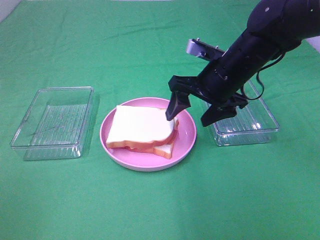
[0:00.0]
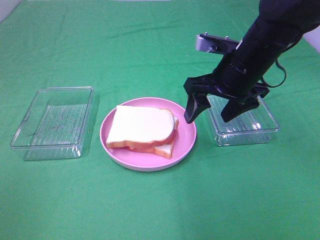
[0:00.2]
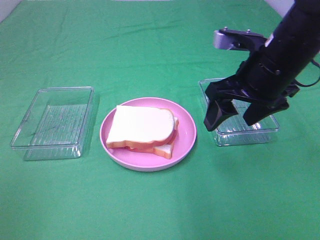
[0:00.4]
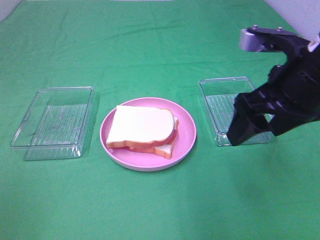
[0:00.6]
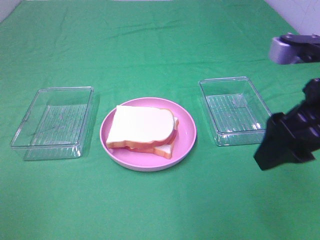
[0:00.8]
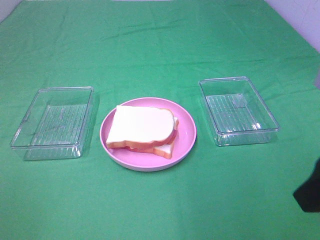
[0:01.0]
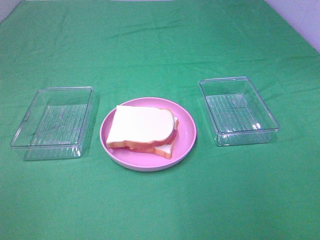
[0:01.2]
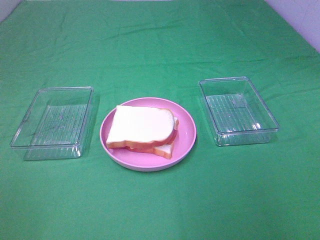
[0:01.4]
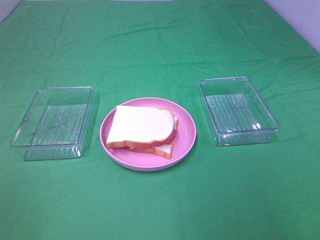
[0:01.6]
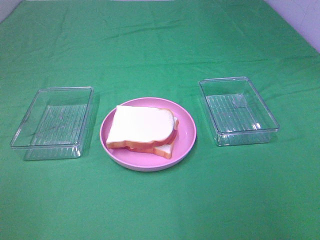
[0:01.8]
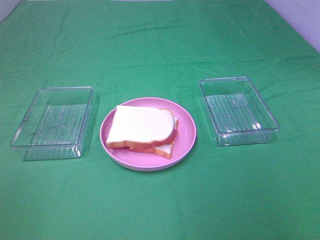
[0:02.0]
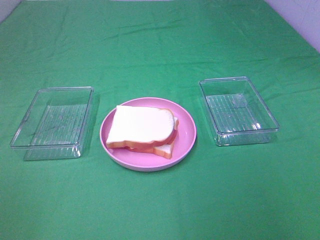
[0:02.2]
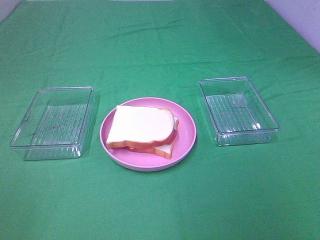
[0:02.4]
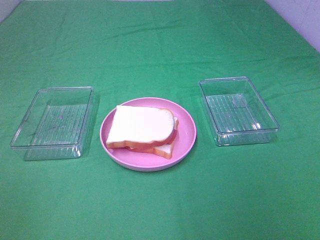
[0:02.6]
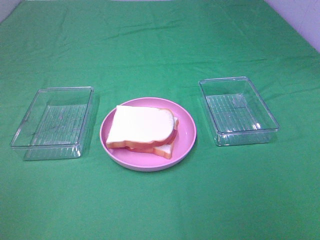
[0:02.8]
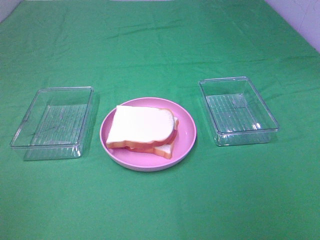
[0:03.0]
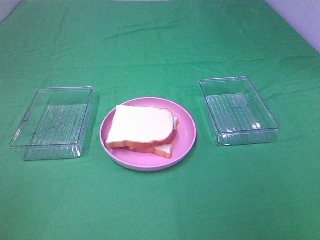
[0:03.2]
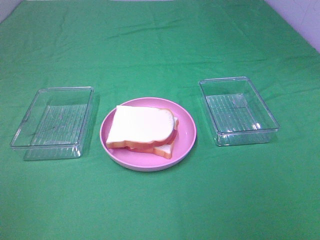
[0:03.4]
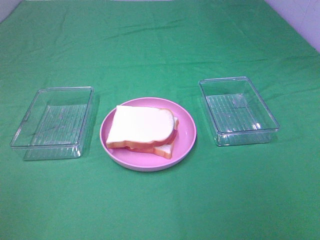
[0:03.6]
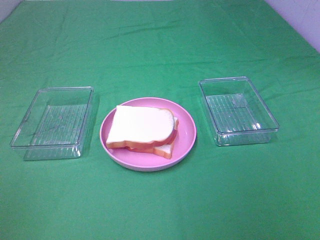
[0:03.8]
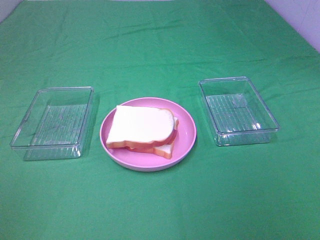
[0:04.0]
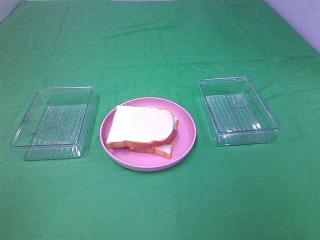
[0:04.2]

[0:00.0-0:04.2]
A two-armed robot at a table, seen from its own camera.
Task of the whole recording: Make sandwiches.
0:00.0 to 0:01.4: The right gripper is displaced backward and to the right by approximately 30 cm.

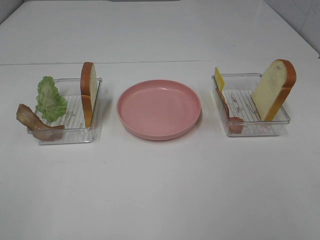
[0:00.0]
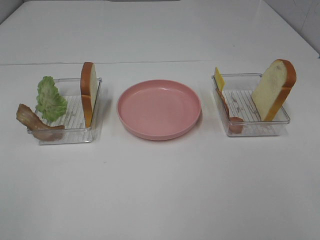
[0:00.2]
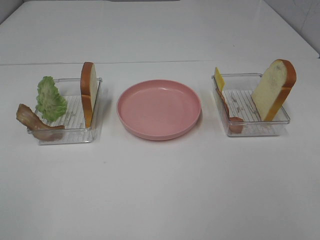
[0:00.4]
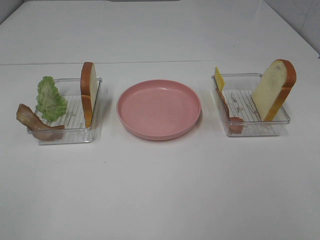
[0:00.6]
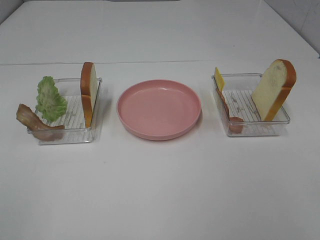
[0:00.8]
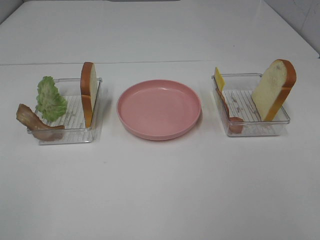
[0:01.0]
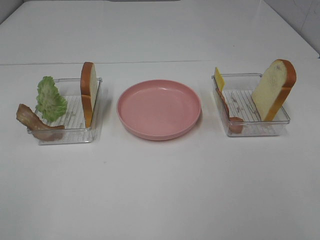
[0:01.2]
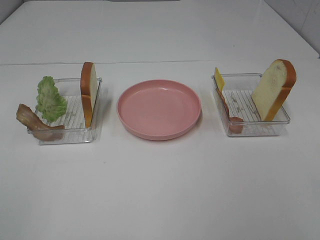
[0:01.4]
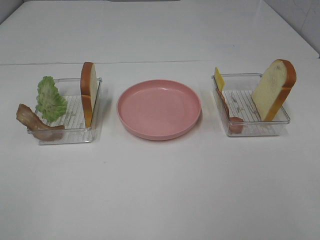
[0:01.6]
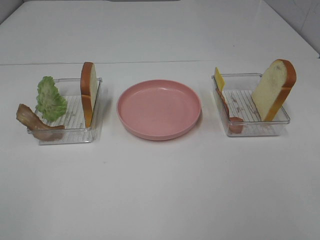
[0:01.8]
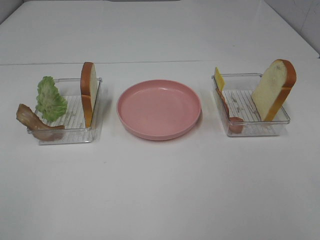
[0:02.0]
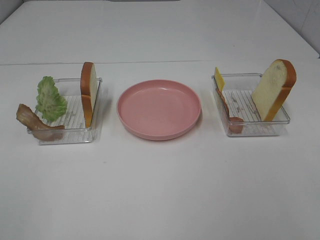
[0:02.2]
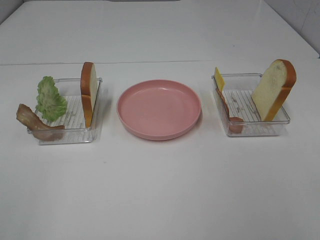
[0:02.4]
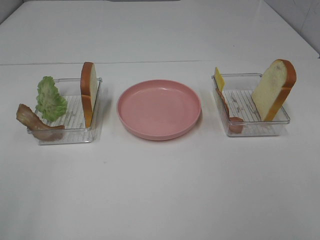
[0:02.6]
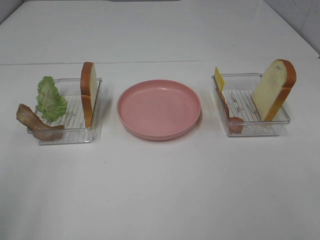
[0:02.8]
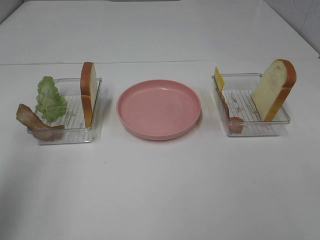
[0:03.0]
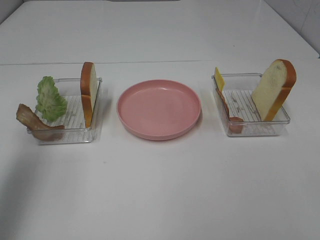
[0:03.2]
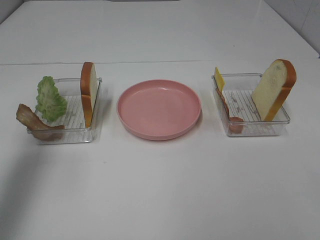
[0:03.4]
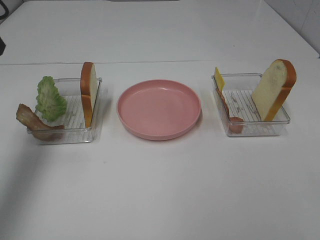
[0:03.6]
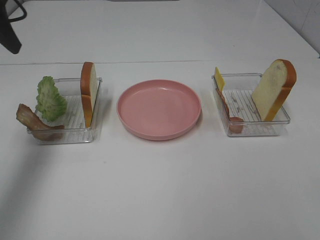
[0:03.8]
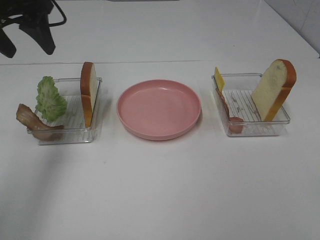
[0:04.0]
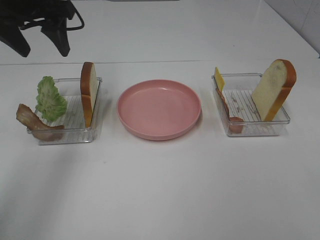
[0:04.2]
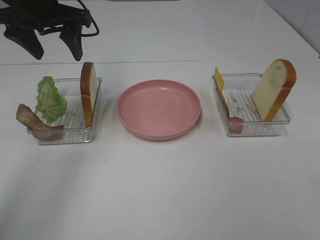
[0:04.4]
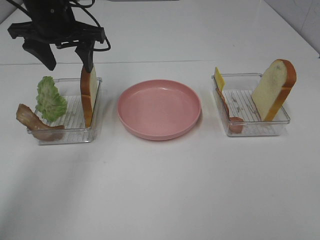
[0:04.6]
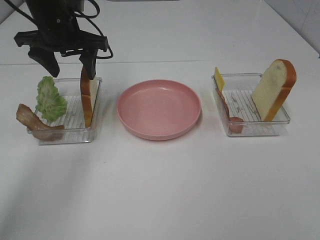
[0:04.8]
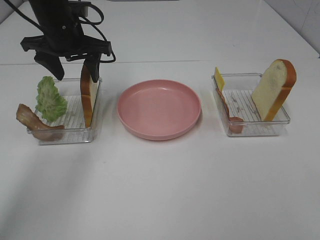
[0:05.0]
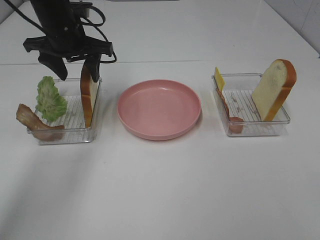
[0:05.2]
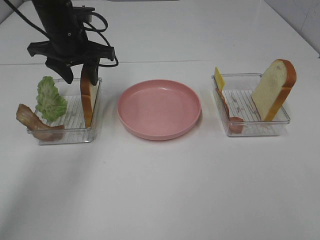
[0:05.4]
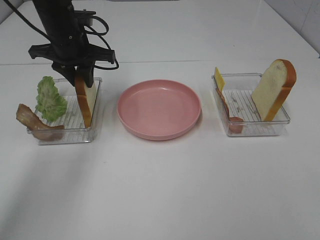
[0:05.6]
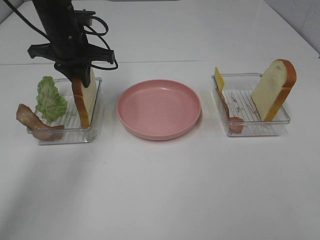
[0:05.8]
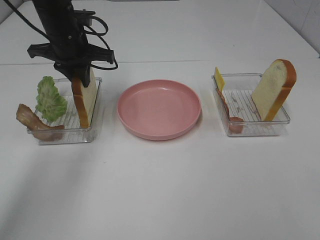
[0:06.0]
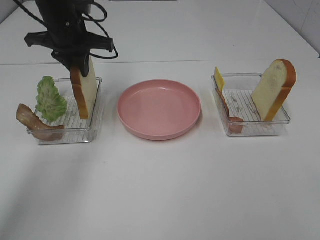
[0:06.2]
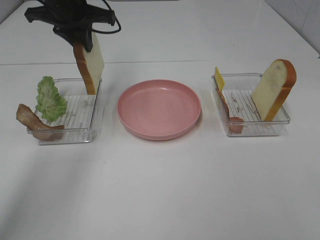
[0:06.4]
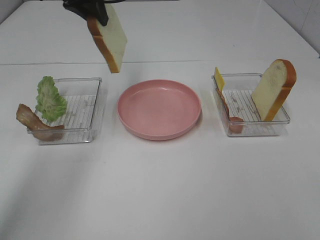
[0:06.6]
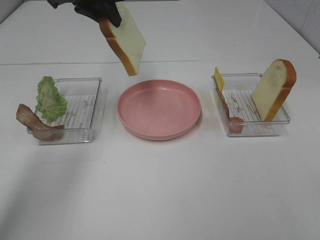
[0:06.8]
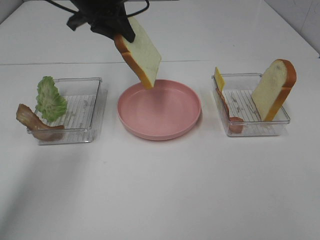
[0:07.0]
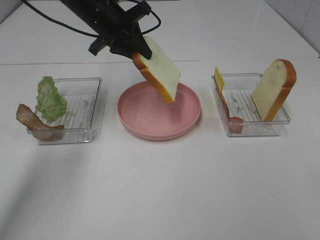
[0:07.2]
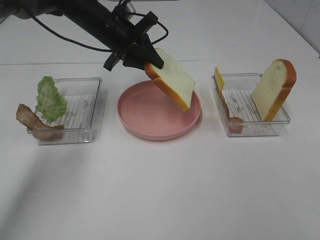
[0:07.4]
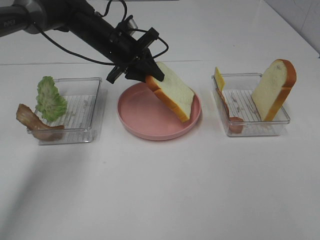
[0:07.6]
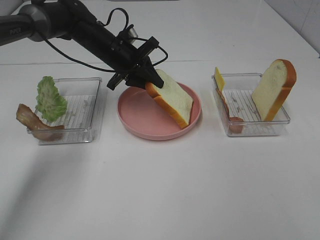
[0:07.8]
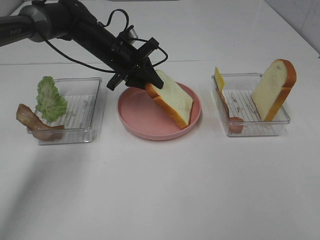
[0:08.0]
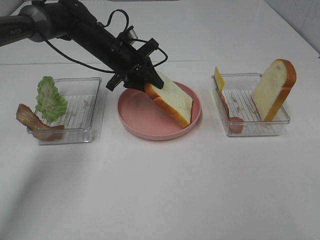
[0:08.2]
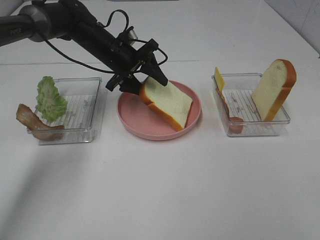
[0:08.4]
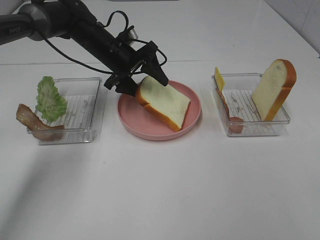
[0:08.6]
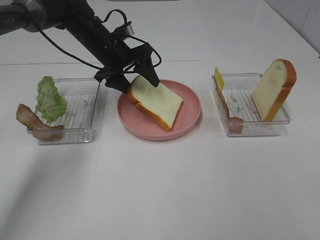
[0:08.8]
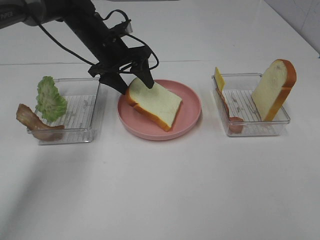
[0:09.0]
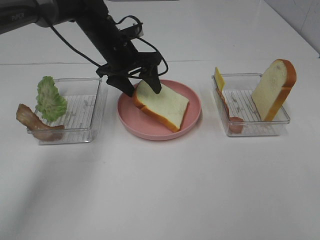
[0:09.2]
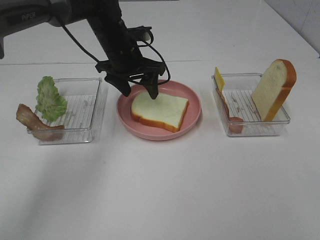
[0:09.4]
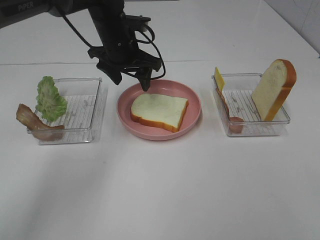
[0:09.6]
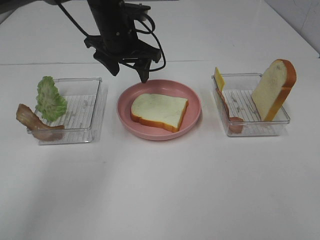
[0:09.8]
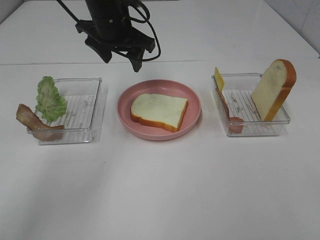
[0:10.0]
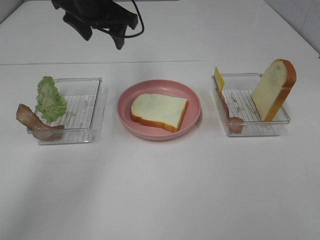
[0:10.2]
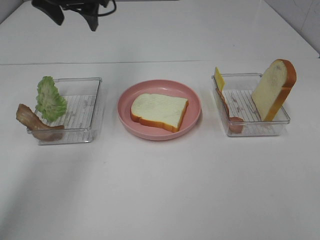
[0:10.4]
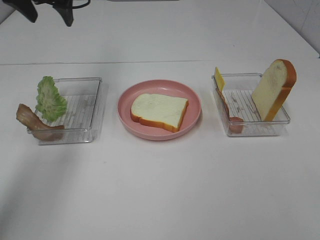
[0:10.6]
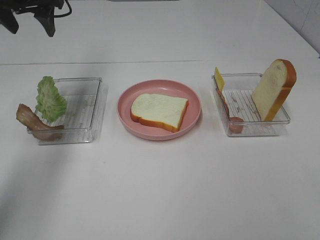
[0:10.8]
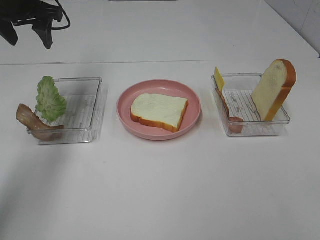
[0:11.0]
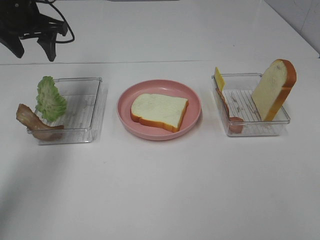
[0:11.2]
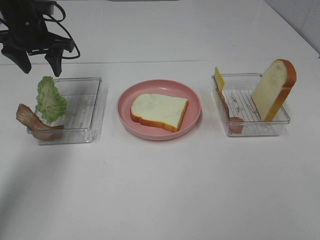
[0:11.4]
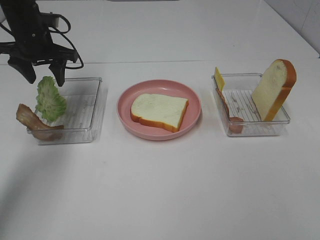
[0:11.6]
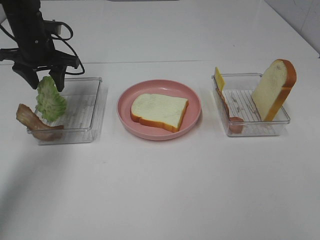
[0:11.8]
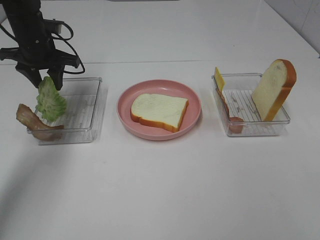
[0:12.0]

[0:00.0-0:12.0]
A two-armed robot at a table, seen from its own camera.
Task of the whole recording: Make sandwiches.
Step, 0:00.0 to 0:06.0: Left hand:grab the bread slice.
Step, 0:06.2 to 0:09.8: Left hand:place the bread slice on the plate.
0:00.0 to 0:01.6: Both grippers stay about where they are.
0:01.6 to 0:03.0: The left gripper moves forward and upward, some 15 cm.
0:03.0 to 0:04.4: The left gripper travels forward and to the right by approximately 25 cm.
0:04.4 to 0:06.0: The left gripper is displaced downward by about 10 cm, and closes up.
0:06.0 to 0:07.6: The left gripper goes approximately 5 cm to the right, and travels upward and back again, approximately 10 cm each way.
0:07.6 to 0:09.0: The left gripper opens up.
0:09.0 to 0:10.4: The left gripper is displaced upward and to the left by some 15 cm.
0:10.4 to 0:12.0: The left gripper is displaced downward and to the left by approximately 15 cm.

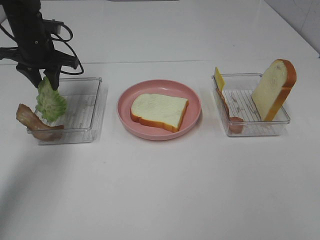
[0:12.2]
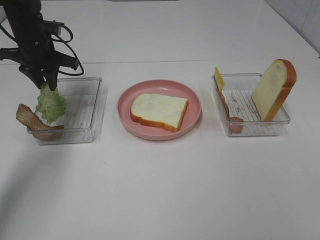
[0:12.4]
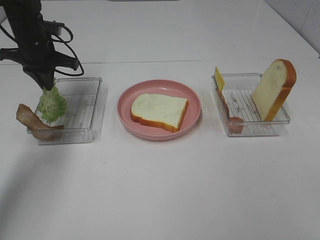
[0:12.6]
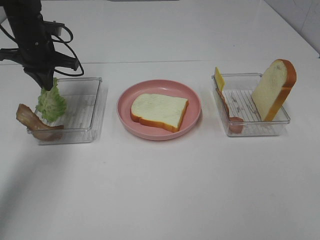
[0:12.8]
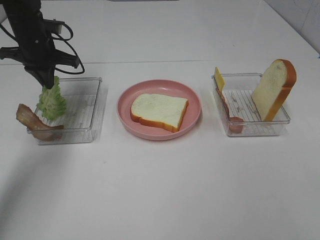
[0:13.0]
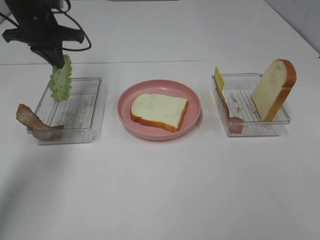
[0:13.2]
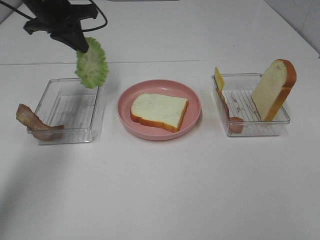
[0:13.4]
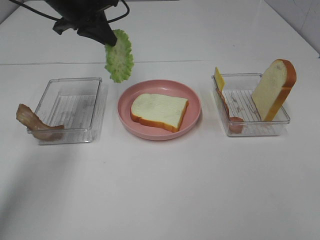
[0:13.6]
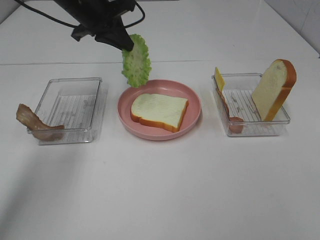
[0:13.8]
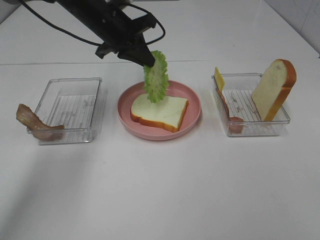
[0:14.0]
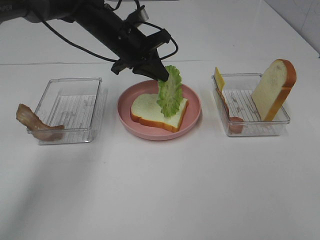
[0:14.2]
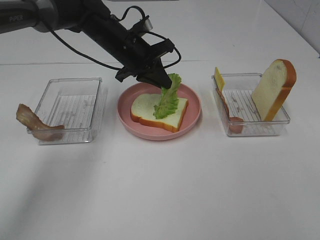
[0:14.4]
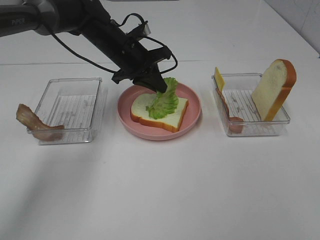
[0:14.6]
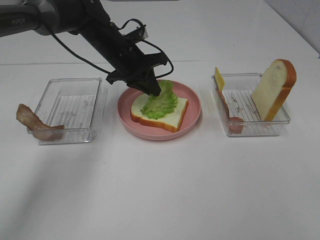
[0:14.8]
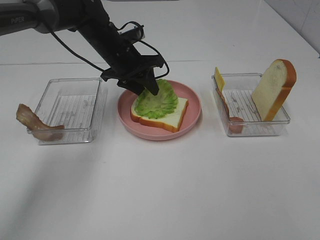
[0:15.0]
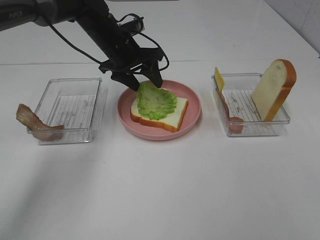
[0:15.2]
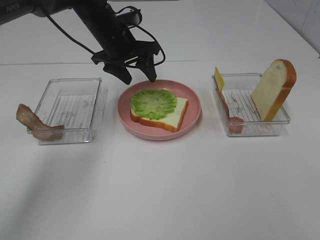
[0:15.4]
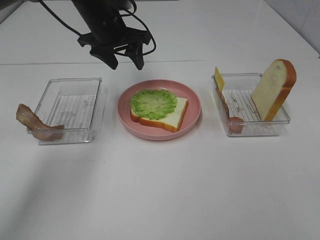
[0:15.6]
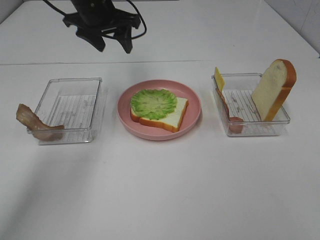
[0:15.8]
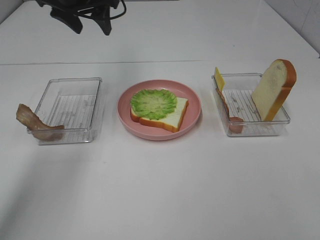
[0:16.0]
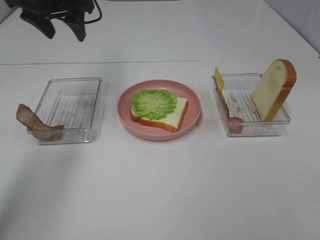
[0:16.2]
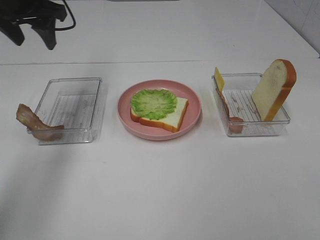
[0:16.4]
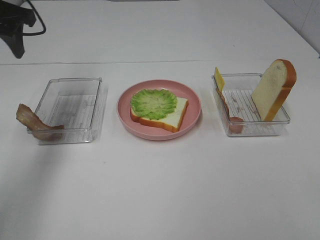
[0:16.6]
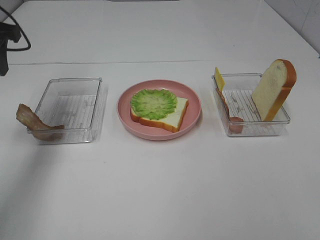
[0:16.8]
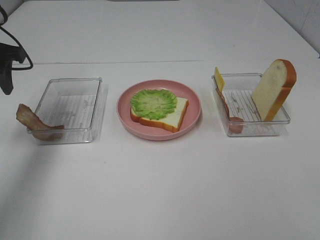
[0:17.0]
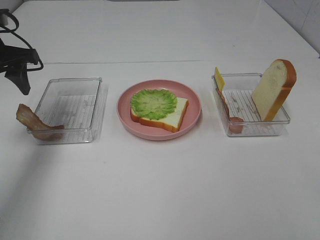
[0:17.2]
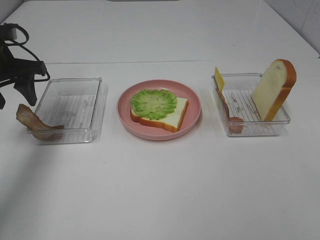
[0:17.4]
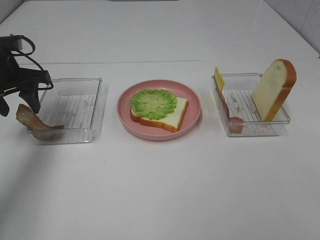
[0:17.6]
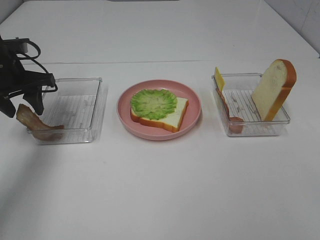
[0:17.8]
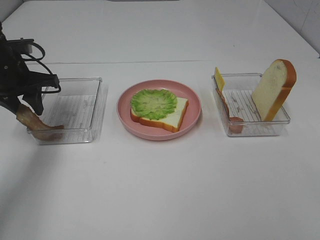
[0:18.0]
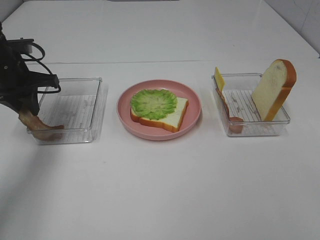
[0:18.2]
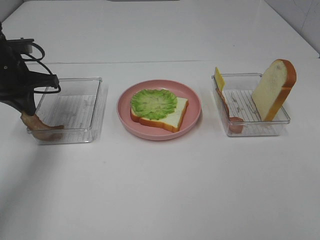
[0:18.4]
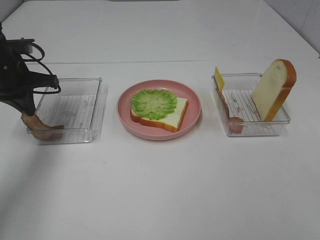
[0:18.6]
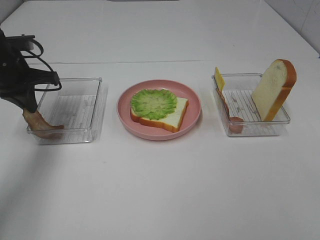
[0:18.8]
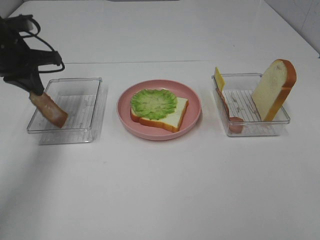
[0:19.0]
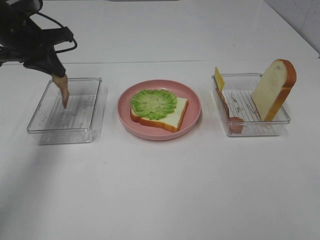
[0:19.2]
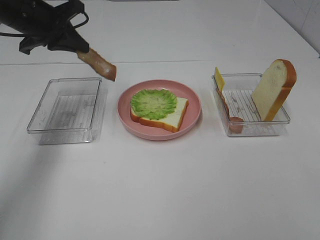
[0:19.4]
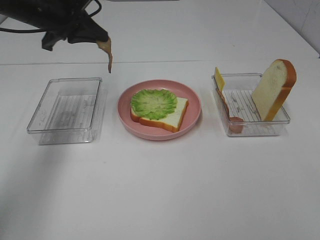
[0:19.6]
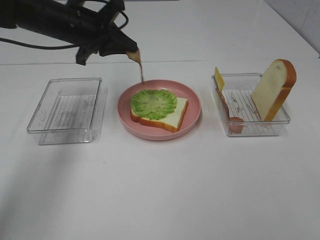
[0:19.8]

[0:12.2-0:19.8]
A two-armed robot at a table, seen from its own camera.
Task of the whole recording: Make sandwiches.
Step, 0:13.2 to 0:15.4: Left hand:place the lettuce slice on the bread slice.
Step, 0:15.6 to 0:18.2: Left hand:grab the bacon.
0:12.2 to 0:13.8: The left gripper is displaced to the right and upward by some 15 cm, and closes its fingers.
0:13.8 to 0:15.2: The left gripper moves downward, some 5 cm, and opens.
0:15.2 to 0:16.8: The left gripper travels to the left, upward and backward by roughly 25 cm.
0:16.8 to 0:18.2: The left gripper goes about 10 cm downward, and closes its fingers.
0:18.2 to 0:19.8: The left gripper heads to the right, covering about 10 cm.
